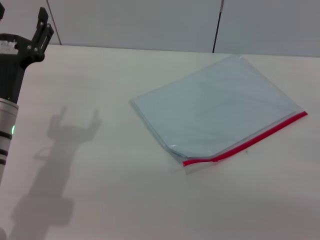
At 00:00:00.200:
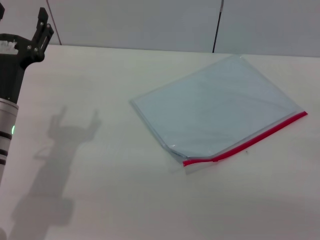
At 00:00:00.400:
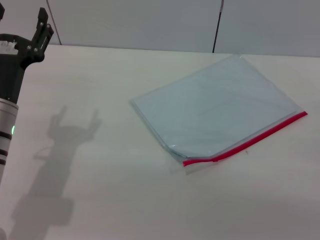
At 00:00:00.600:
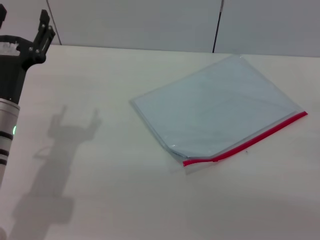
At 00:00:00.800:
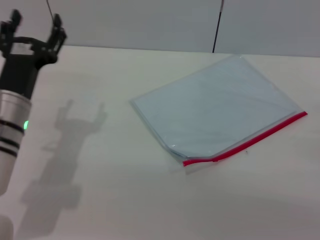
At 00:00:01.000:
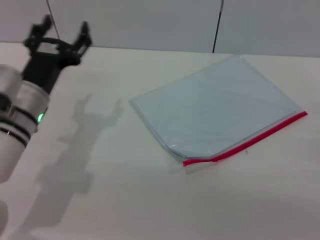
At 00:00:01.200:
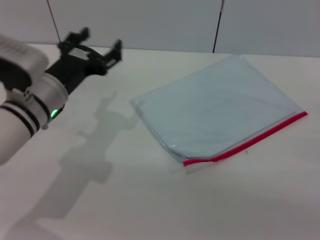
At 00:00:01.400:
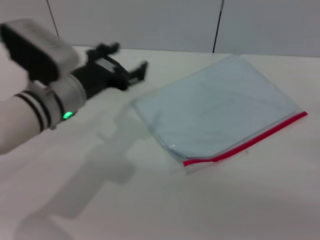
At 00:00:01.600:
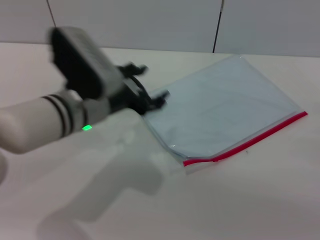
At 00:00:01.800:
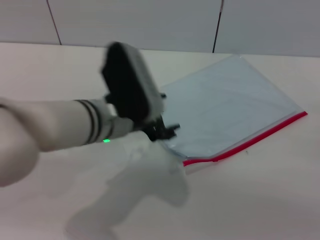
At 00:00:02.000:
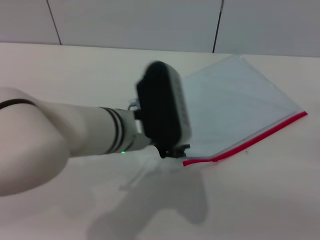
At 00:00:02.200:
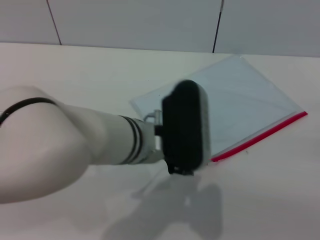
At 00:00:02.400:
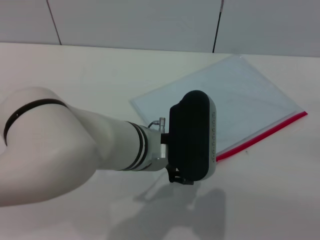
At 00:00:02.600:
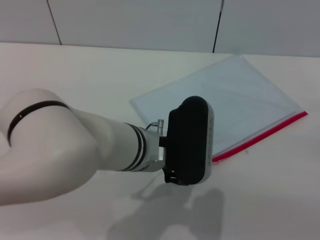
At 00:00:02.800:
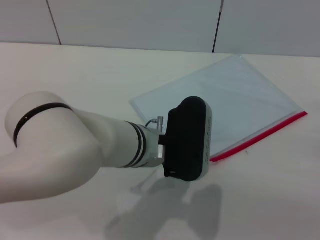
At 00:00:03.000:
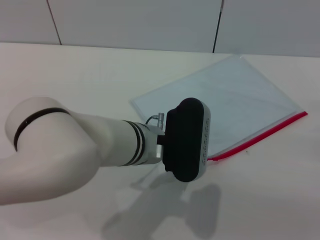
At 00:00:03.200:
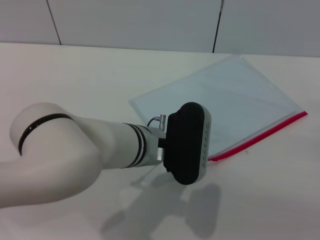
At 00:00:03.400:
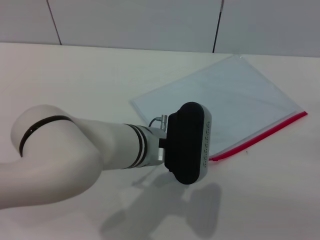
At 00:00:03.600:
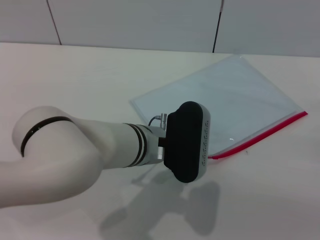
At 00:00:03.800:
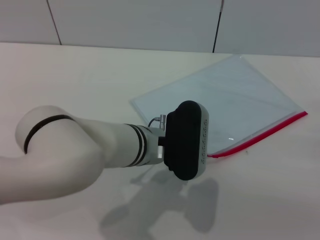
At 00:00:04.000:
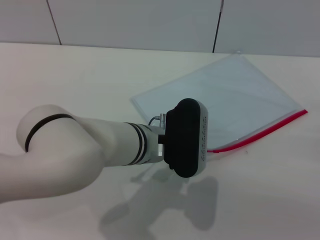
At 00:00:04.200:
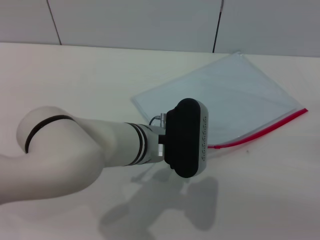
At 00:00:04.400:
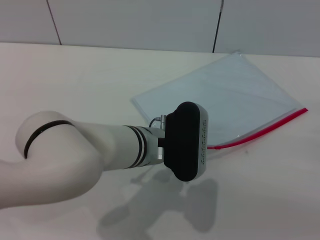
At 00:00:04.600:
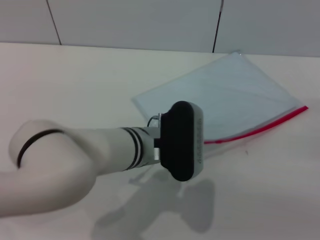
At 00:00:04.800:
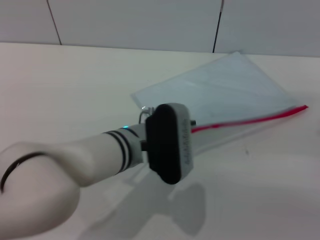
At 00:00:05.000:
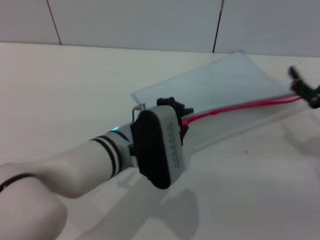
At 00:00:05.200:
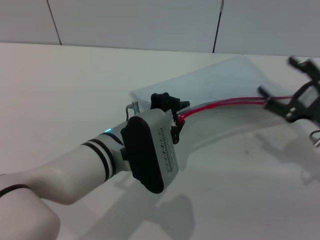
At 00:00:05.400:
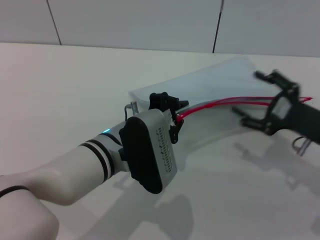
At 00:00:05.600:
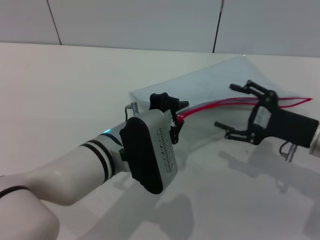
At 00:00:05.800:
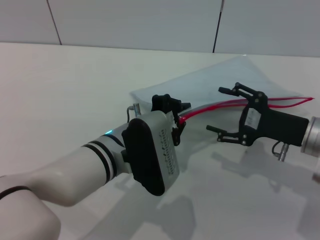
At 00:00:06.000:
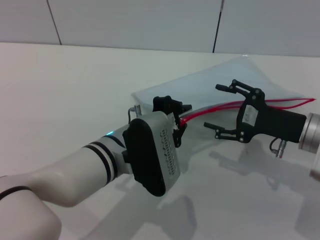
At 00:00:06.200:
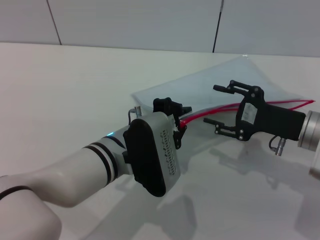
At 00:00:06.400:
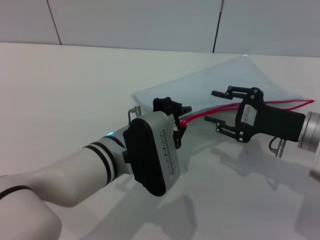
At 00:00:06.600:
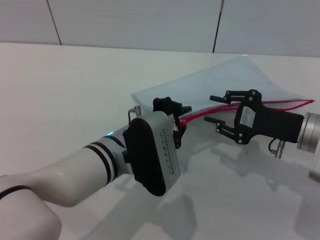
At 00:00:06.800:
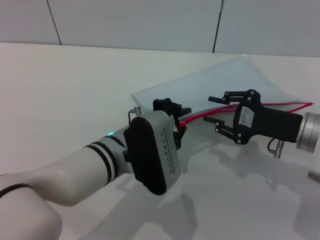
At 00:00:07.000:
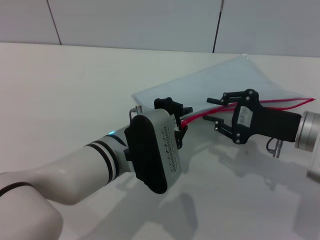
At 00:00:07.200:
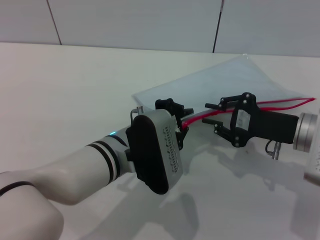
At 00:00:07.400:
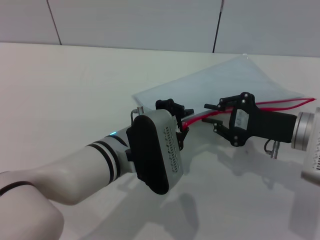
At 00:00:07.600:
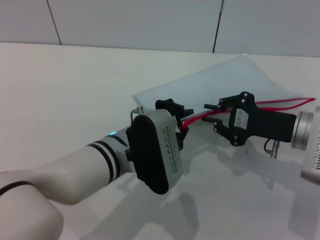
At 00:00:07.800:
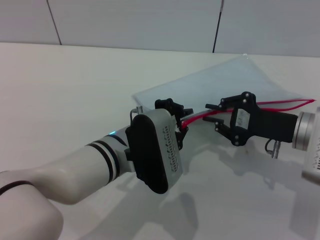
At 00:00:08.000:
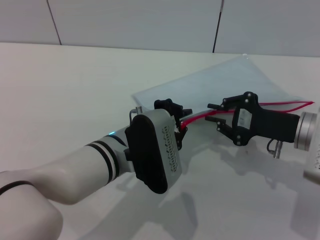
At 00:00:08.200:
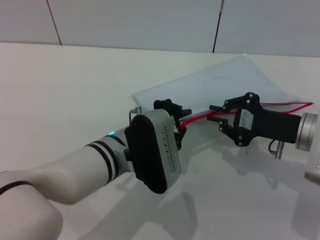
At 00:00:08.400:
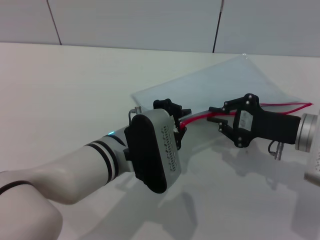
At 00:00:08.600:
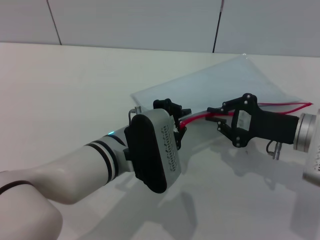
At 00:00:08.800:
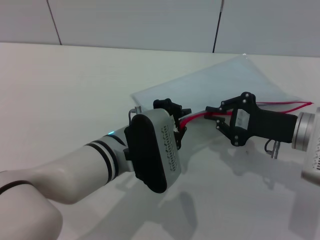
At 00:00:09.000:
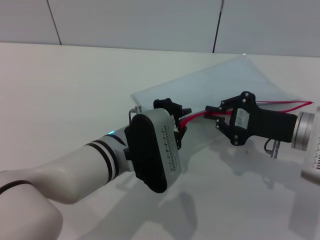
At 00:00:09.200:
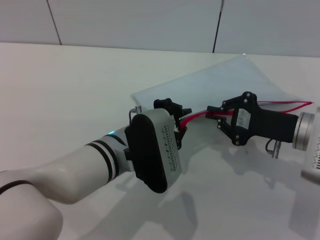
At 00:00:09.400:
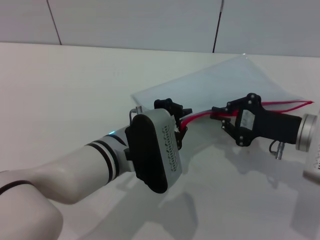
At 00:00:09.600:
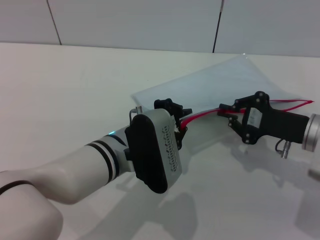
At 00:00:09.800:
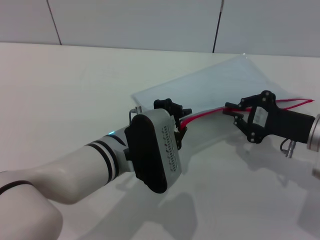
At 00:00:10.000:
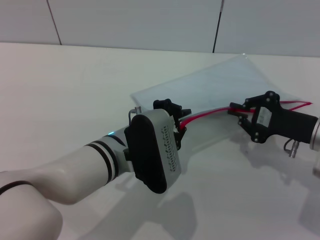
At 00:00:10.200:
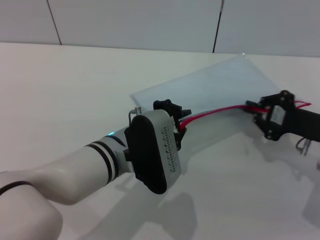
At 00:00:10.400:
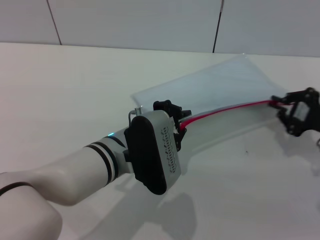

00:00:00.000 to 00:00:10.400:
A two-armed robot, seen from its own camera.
Step, 00:00:00.000 to 00:00:05.000: Pick up the transparent plastic bag with the left gripper.
00:00:00.000 to 00:00:01.400: The left gripper moves to the right, some 5 cm.
00:00:01.400 to 00:00:03.000: The left gripper shifts about 10 cm to the right.
00:00:03.000 to 00:00:04.400: The left gripper closes.
00:00:04.400 to 00:00:06.000: The right gripper is displaced to the left and forward by approximately 15 cm.
00:00:06.000 to 00:00:07.400: The right gripper closes up.
00:00:07.400 to 00:00:09.000: The two grippers keep their place.
00:00:09.000 to 00:00:10.400: The right gripper goes some 10 cm to the right.

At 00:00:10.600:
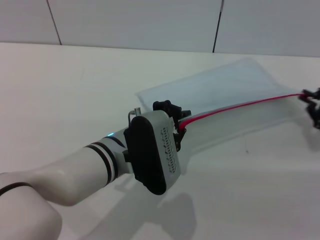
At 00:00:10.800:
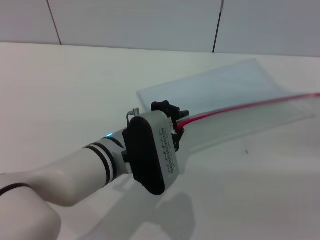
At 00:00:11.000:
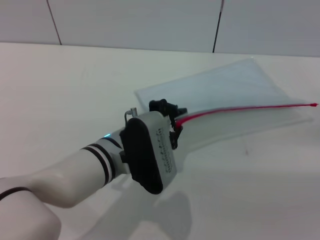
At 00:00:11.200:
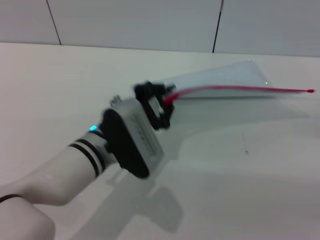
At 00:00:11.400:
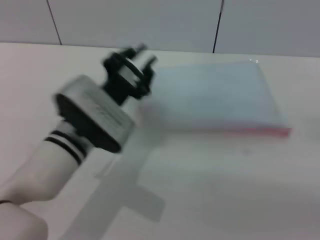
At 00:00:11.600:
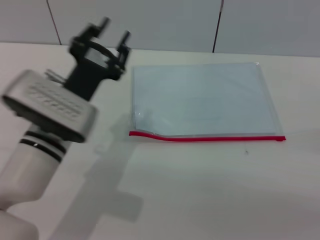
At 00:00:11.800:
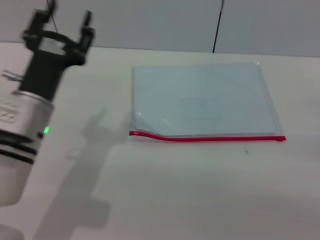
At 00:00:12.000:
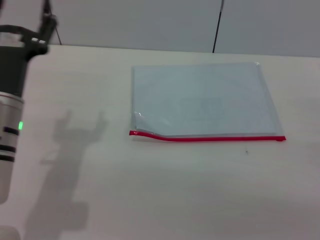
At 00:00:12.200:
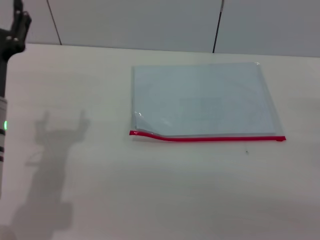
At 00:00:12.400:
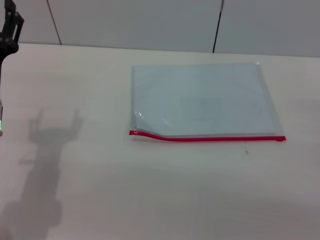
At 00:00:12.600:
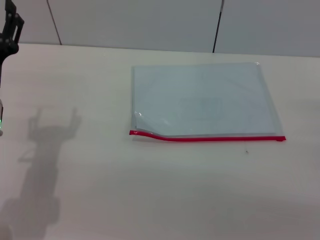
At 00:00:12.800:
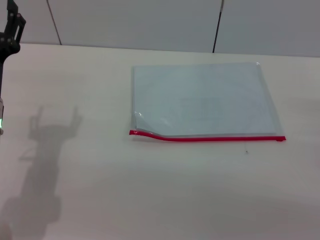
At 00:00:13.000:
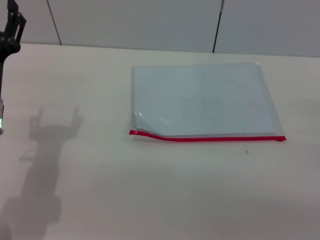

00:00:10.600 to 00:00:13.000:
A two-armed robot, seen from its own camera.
Step, 00:00:11.200 to 00:00:11.400: Place the transparent plastic bag.
00:00:10.600 to 00:00:11.800: The left gripper is displaced to the left by approximately 10 cm. Meanwhile the right gripper travels backward by about 5 cm, and opens.
00:00:11.800 to 00:00:13.000: The left gripper travels to the left by roughly 5 cm, and opens up.
